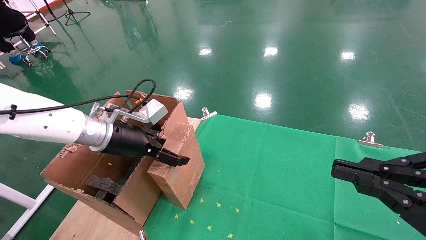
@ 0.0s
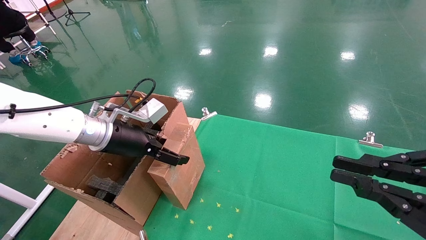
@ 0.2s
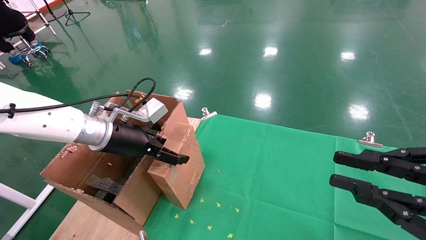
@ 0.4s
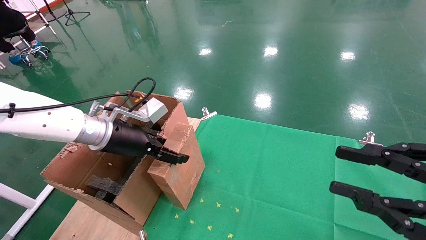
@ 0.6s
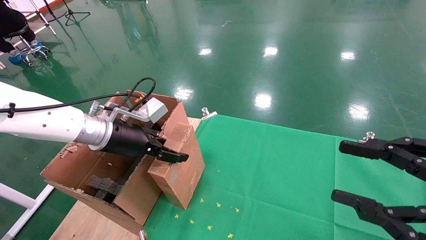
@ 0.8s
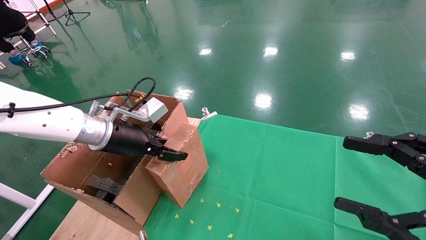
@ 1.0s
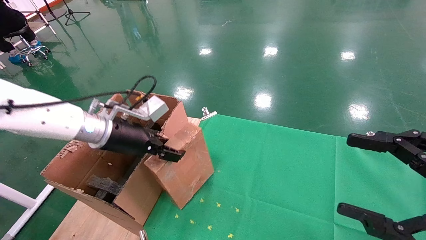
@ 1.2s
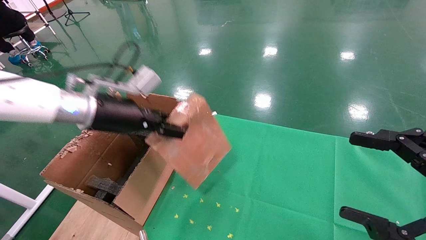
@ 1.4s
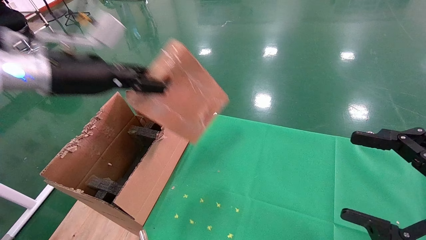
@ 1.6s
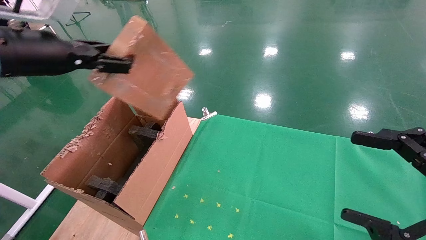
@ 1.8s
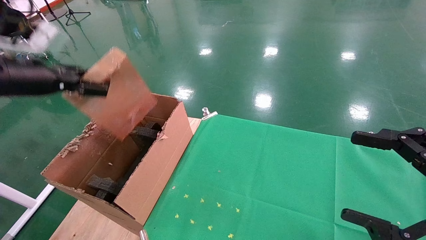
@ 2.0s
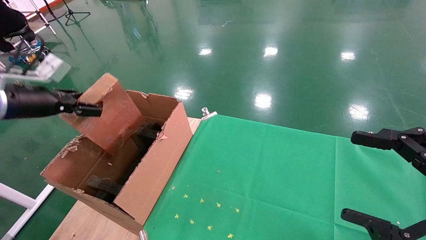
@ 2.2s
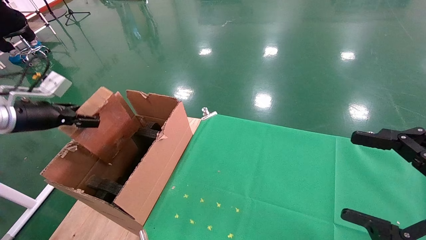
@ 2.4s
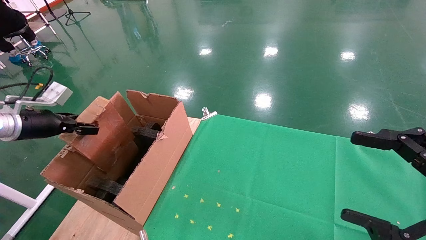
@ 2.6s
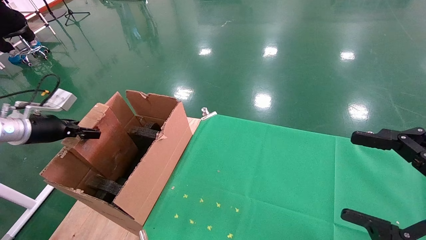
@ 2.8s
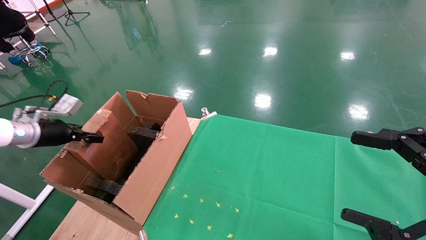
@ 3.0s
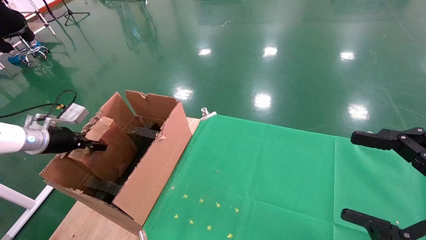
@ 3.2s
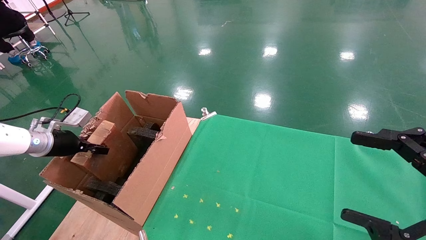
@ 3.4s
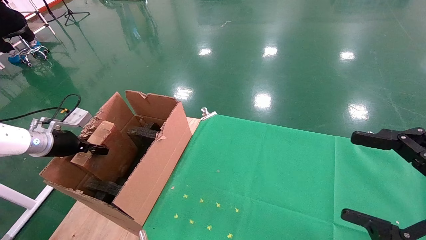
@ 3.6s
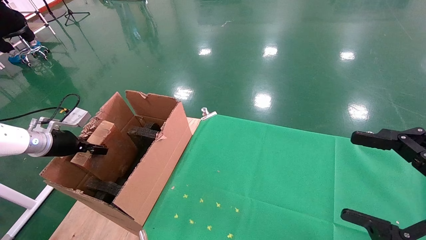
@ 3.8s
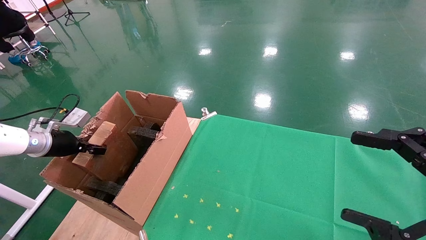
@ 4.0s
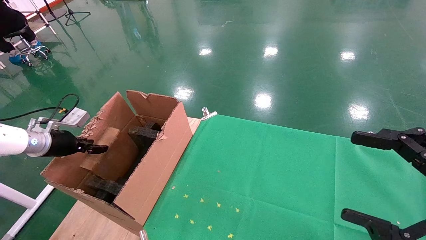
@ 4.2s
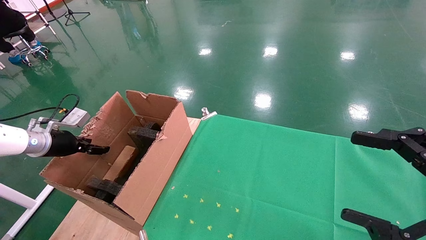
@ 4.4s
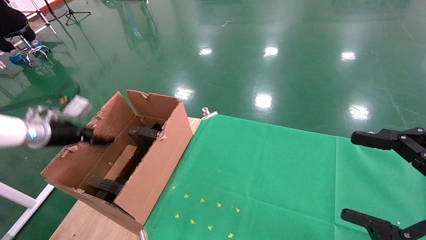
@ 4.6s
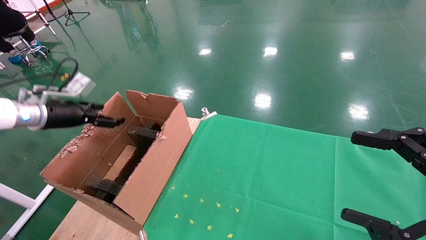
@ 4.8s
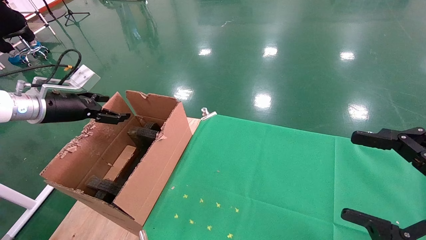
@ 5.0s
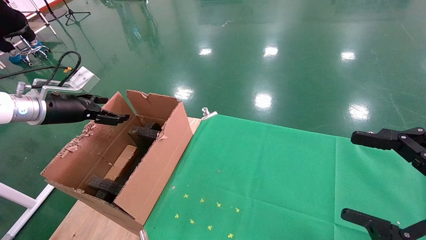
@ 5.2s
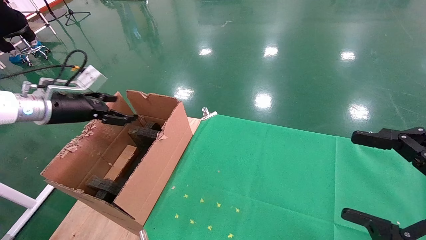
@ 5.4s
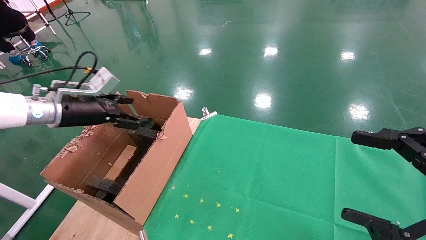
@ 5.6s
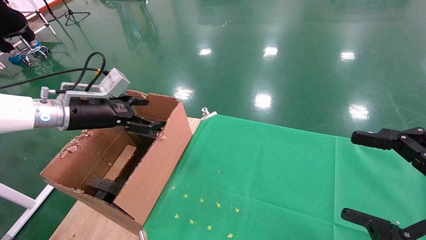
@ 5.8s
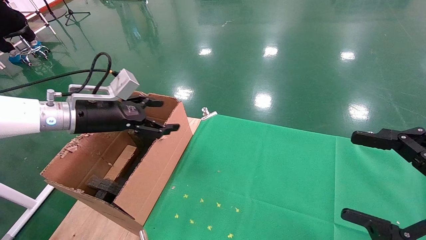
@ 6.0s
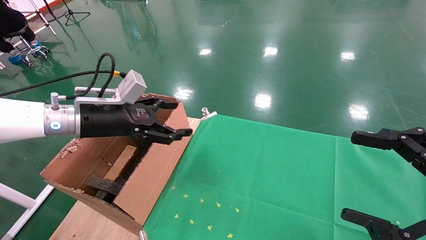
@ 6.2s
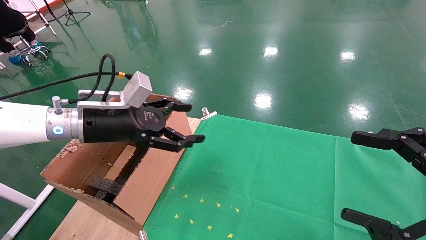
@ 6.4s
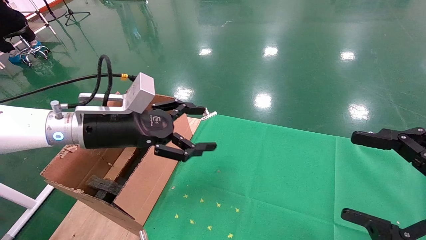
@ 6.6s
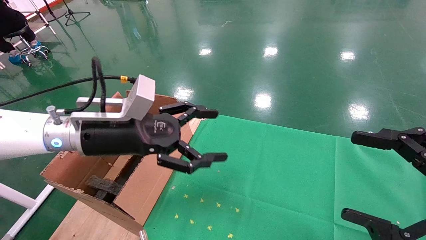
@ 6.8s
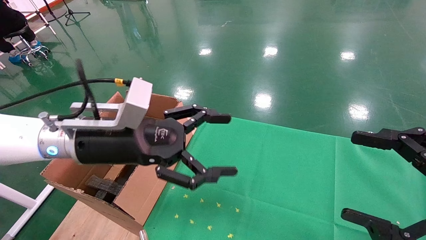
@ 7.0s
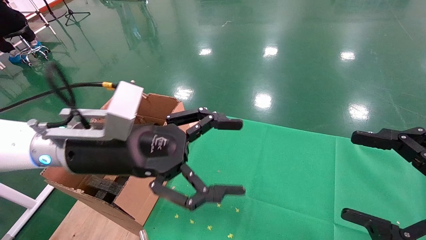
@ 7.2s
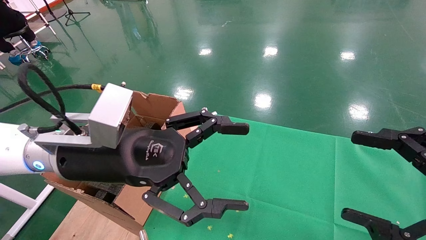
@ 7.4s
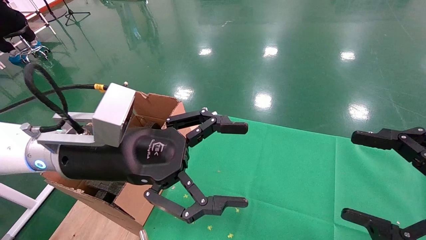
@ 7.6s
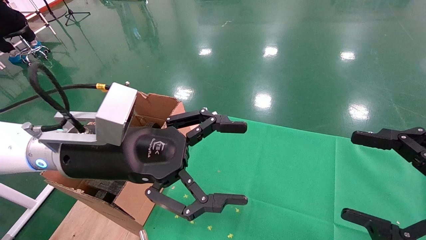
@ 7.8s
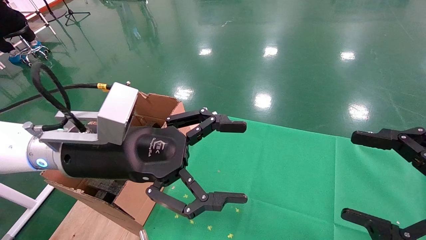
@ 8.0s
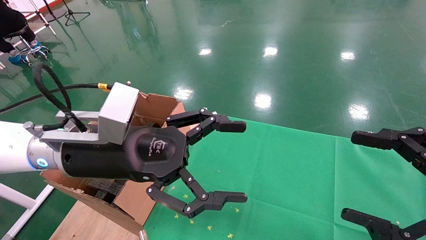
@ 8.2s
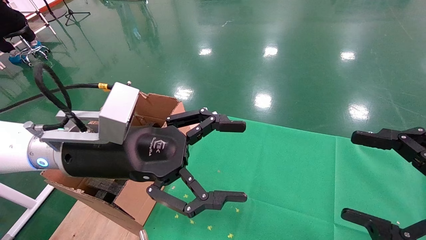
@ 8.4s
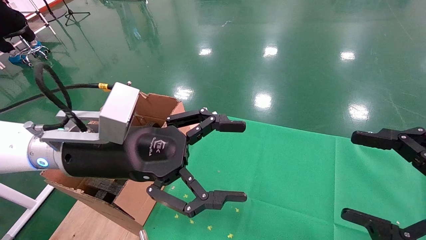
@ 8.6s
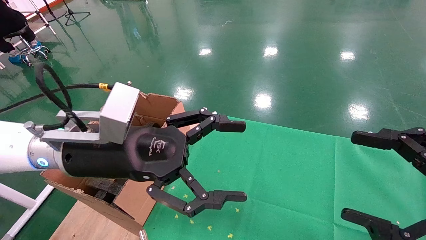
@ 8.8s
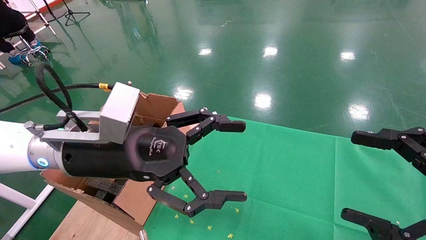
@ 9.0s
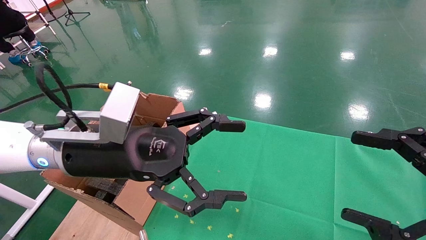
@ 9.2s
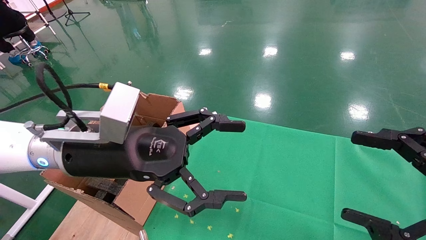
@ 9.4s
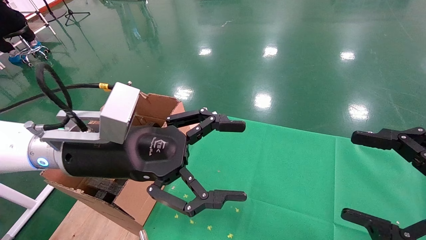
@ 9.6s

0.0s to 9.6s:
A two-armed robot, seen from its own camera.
Task of the whole recording: using a robotic arm to pick up a cardboard box and palace it the carton.
Step, 1.2s to 4.6s: Place the mouse and the power cord paper box into the container.
0.0s to 1.6s: The right gripper opens. The left gripper is displaced upward and backward by roughly 15 cm, and closes its fingers.
1.6s to 3.2s: The left gripper travels to the left and downward by roughly 25 cm.
3.2s to 4.8s: The left gripper travels upward by about 5 cm, and opens.
4.8s to 6.4s: The left gripper moves to the right, about 20 cm.
6.4s to 8.0s: The left gripper heads backward and to the right, covering some 10 cm.
8.0s to 9.6s: Both grippers stay about where they are.

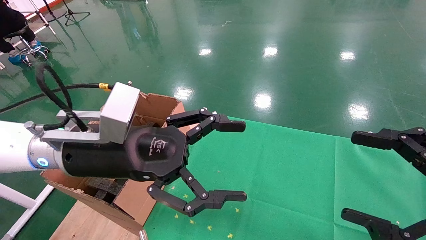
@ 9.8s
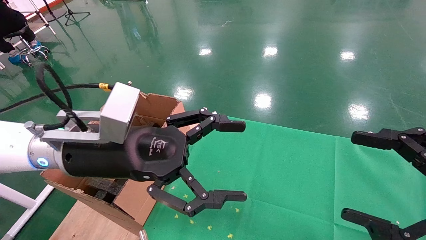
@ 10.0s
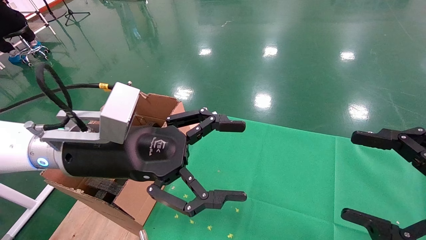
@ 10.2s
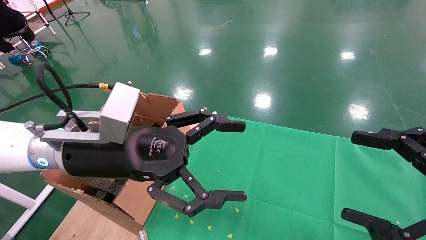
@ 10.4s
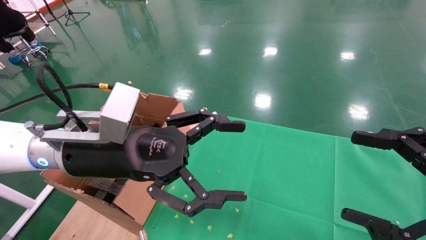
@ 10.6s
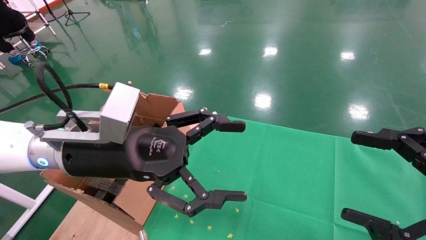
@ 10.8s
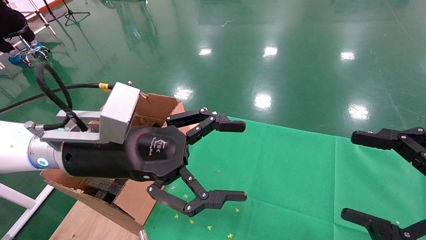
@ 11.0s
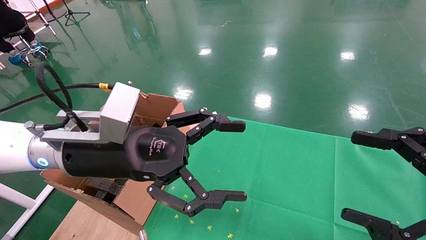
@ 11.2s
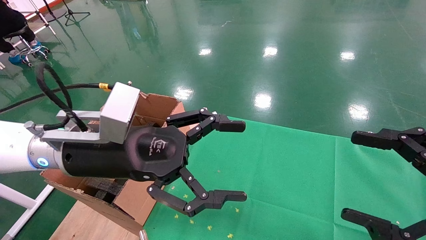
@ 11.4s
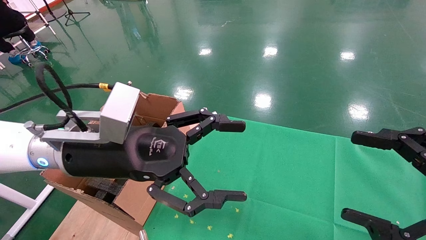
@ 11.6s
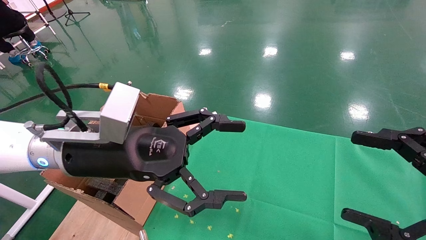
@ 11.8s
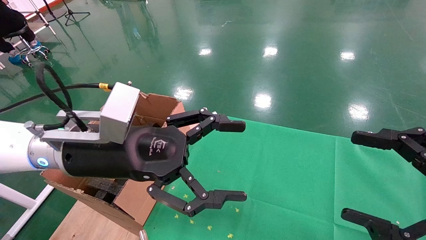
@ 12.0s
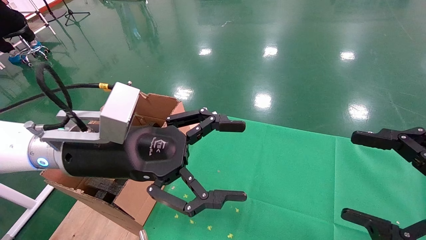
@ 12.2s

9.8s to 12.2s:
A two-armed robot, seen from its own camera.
Task of the whole recording: using a robotic arm to pick up a cardboard box and palace it the carton.
9.8s to 12.2s: Both grippers stay put.
